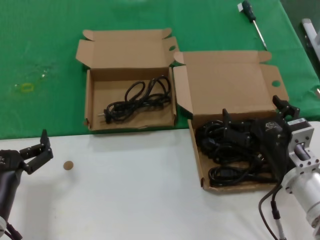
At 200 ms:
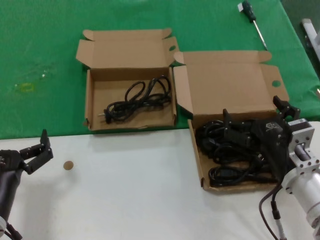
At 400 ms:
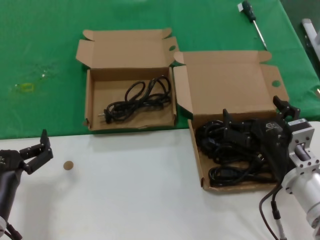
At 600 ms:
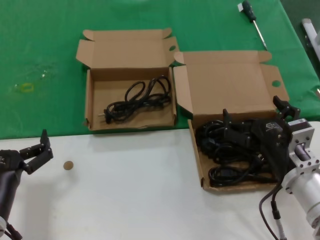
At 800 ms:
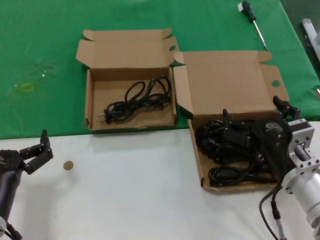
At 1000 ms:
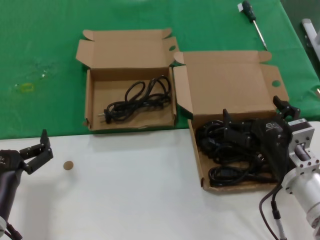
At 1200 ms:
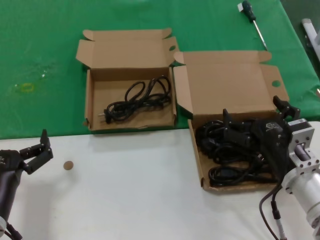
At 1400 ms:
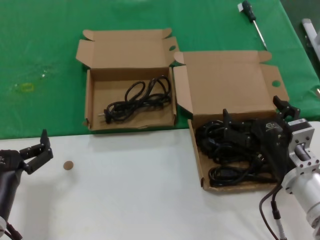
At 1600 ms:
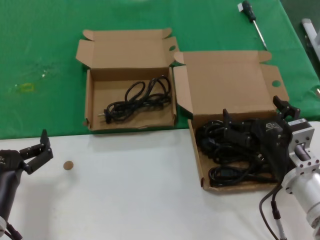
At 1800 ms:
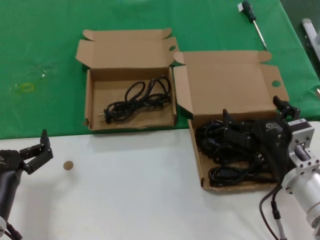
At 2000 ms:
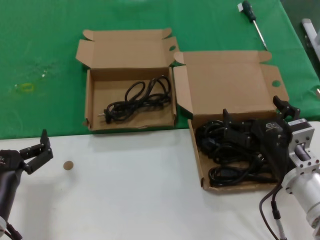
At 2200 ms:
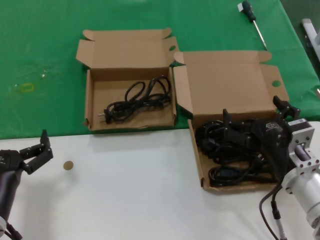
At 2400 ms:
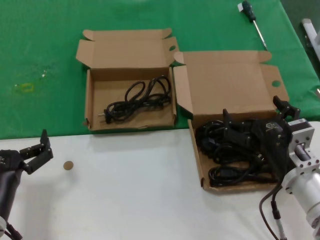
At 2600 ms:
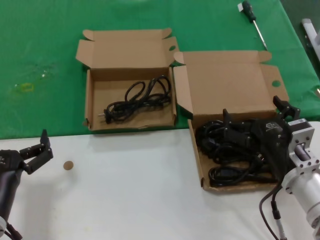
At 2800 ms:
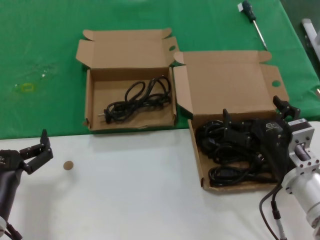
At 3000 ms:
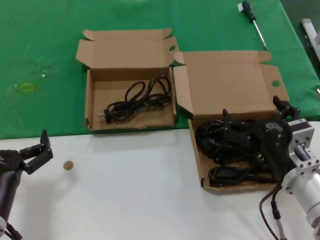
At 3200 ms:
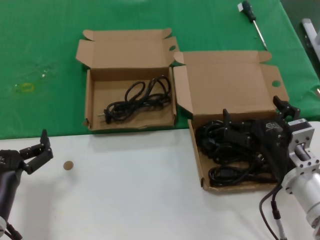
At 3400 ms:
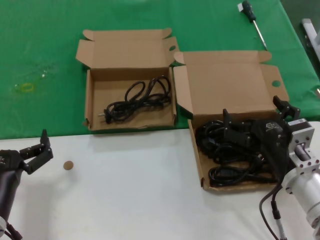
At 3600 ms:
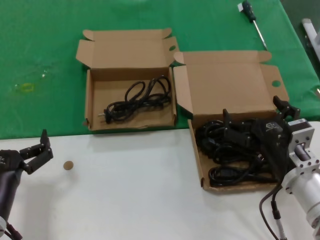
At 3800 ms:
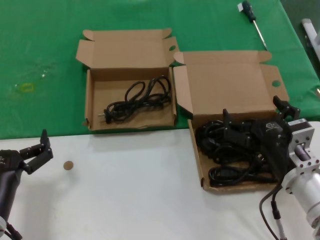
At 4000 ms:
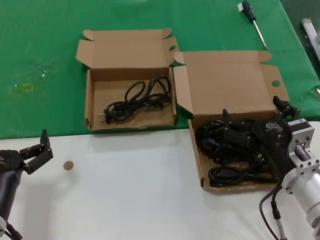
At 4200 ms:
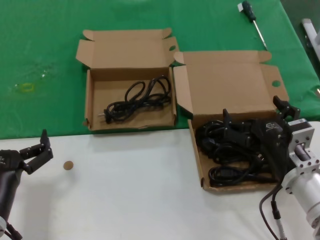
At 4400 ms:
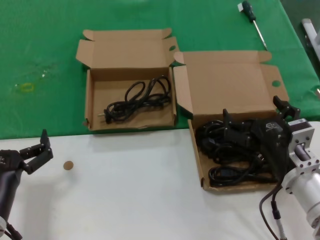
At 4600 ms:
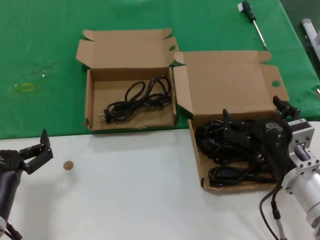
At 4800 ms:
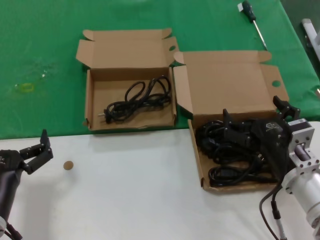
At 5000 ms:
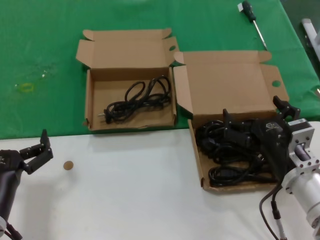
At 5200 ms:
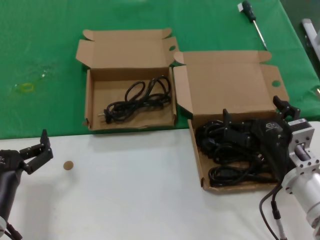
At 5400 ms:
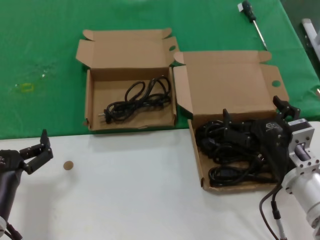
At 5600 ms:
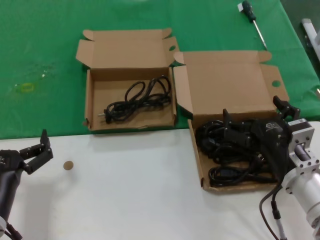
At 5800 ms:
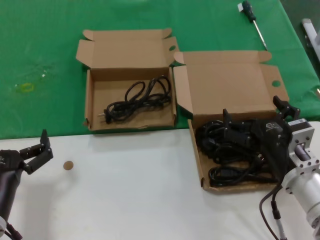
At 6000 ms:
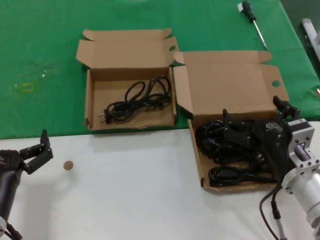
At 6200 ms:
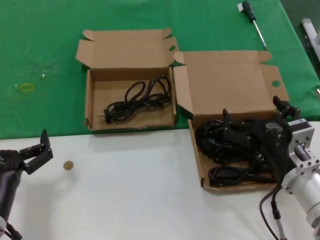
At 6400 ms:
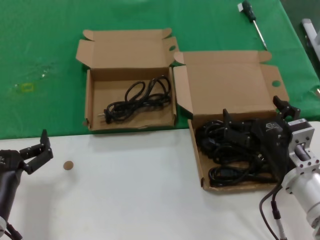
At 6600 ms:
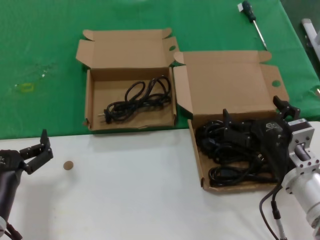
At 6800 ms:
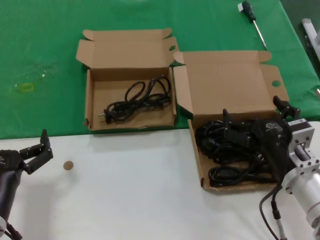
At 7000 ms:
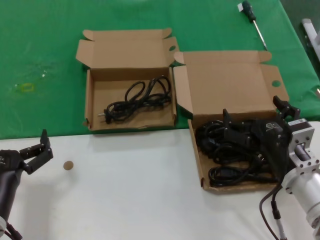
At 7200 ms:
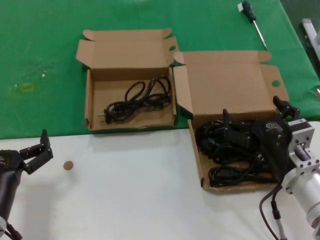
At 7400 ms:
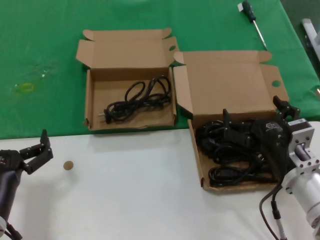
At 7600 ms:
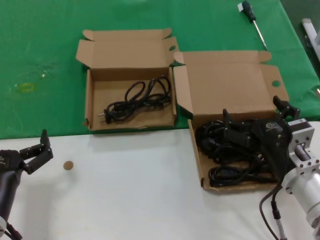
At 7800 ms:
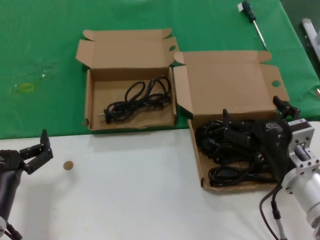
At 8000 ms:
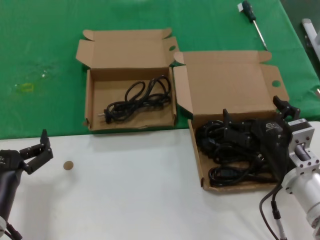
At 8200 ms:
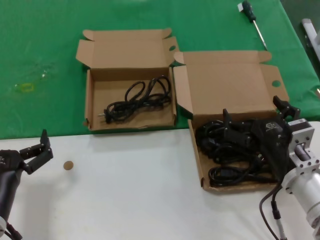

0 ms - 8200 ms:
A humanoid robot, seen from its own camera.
Task of the whole recording: take the parts from the box containing them and put them into an empty box.
0 ms - 8200 ms: Both hands stay about where they are.
